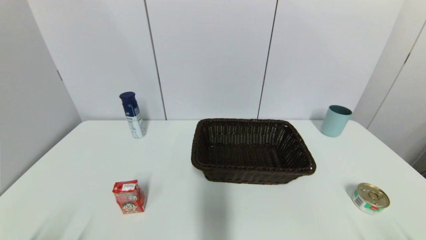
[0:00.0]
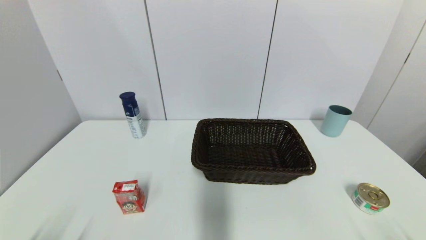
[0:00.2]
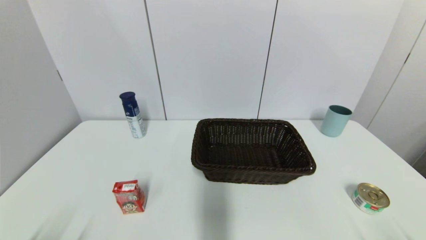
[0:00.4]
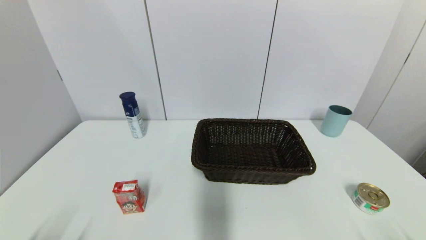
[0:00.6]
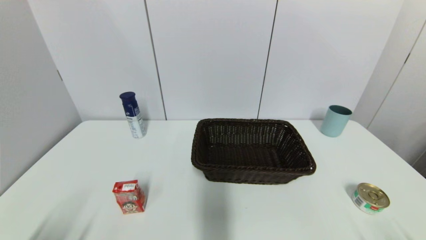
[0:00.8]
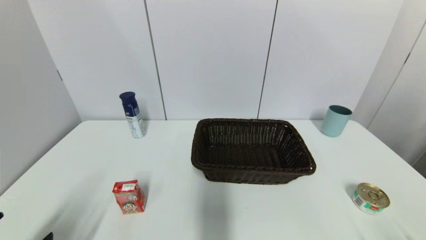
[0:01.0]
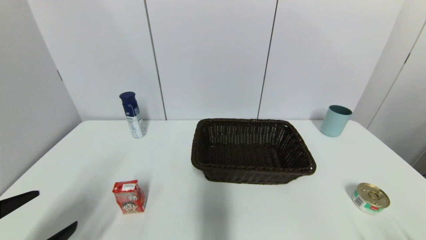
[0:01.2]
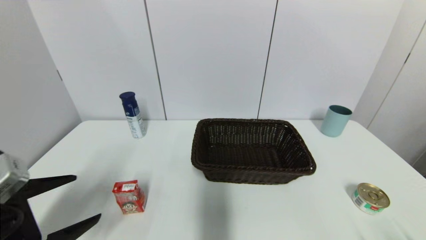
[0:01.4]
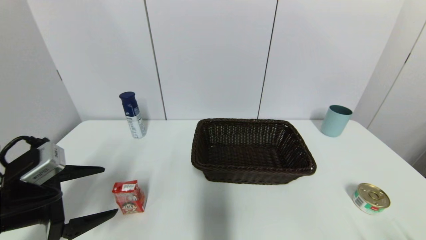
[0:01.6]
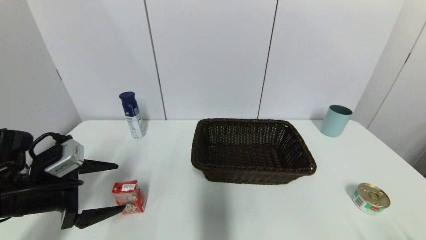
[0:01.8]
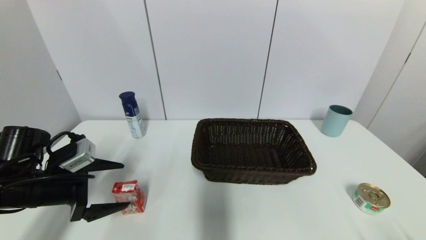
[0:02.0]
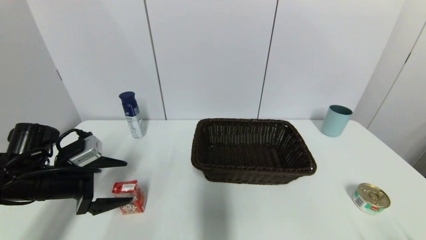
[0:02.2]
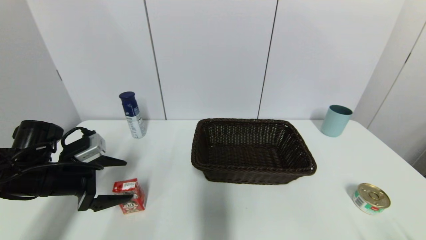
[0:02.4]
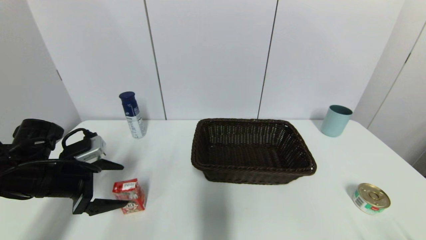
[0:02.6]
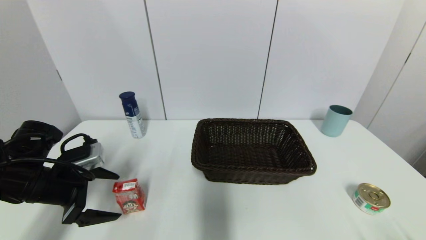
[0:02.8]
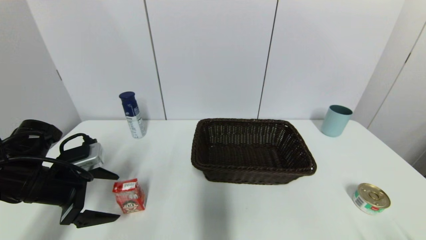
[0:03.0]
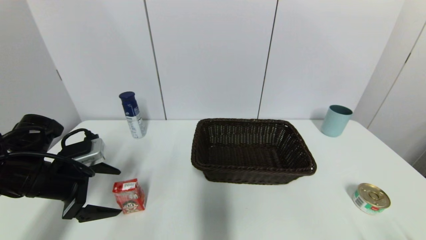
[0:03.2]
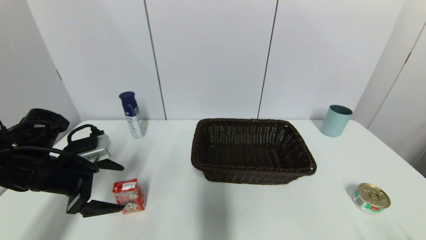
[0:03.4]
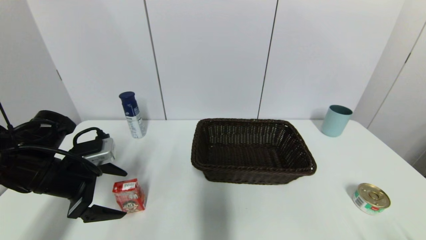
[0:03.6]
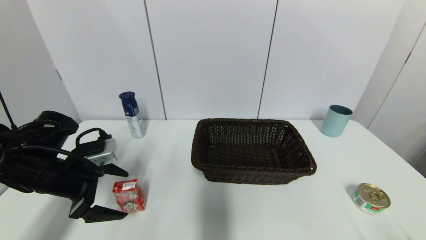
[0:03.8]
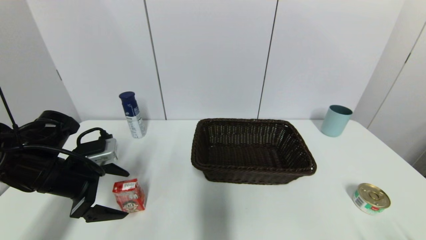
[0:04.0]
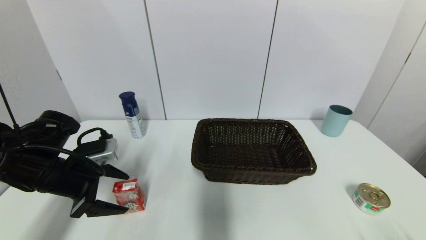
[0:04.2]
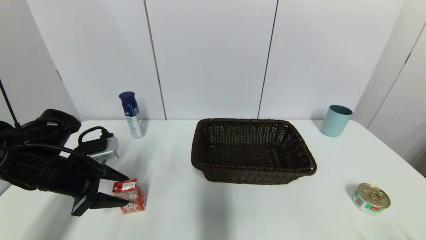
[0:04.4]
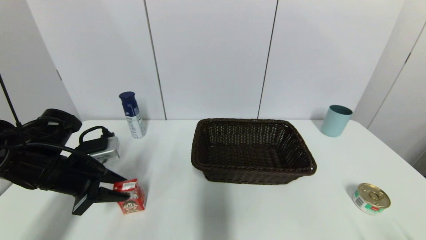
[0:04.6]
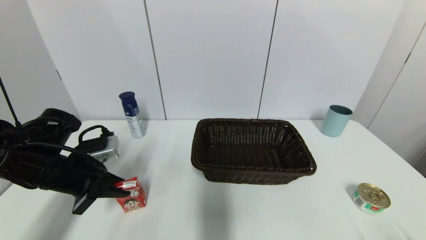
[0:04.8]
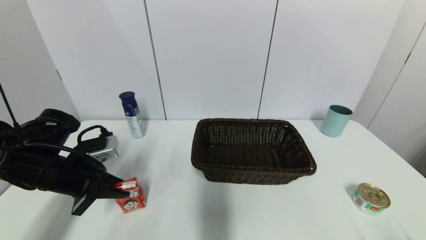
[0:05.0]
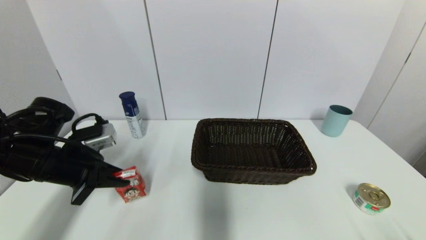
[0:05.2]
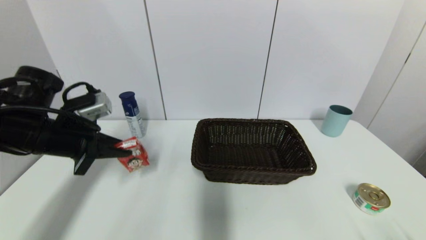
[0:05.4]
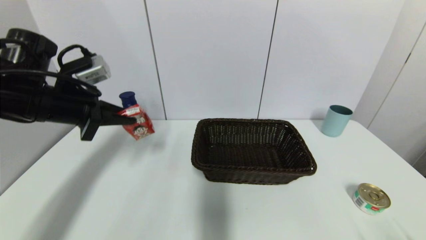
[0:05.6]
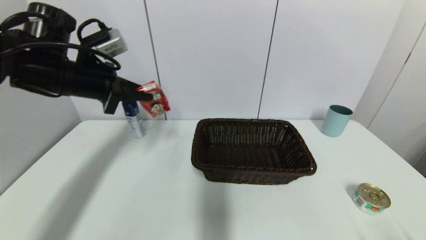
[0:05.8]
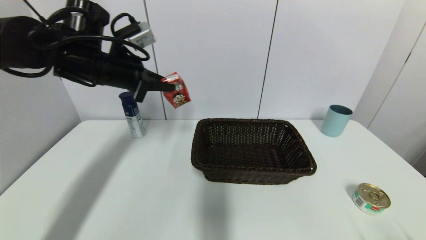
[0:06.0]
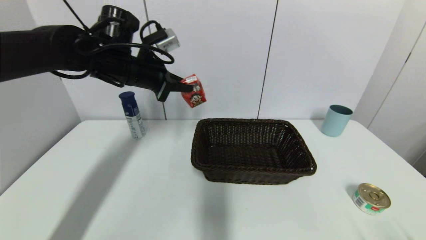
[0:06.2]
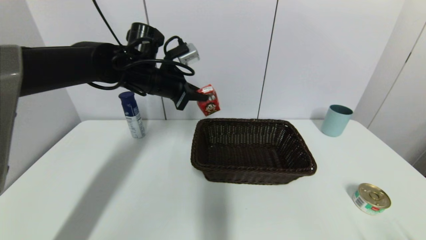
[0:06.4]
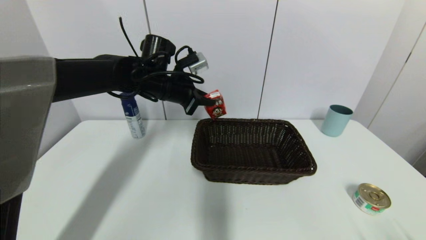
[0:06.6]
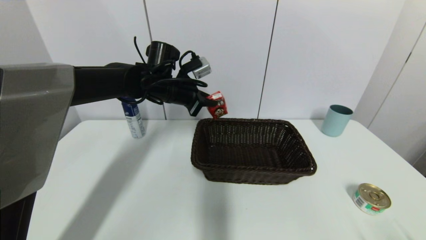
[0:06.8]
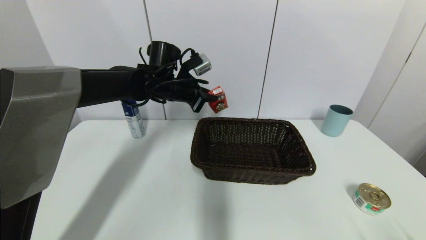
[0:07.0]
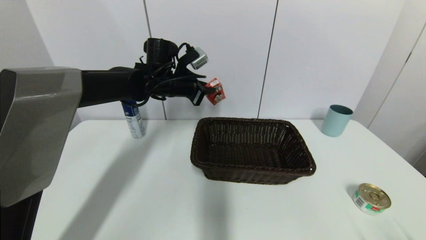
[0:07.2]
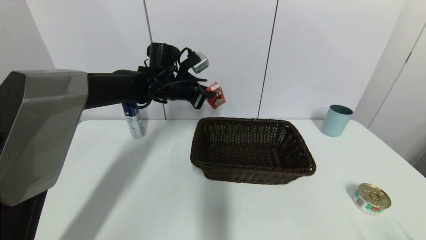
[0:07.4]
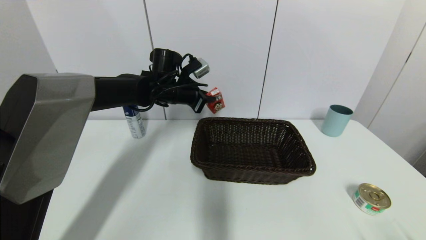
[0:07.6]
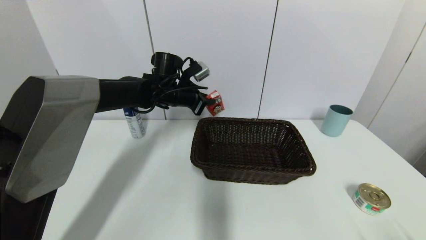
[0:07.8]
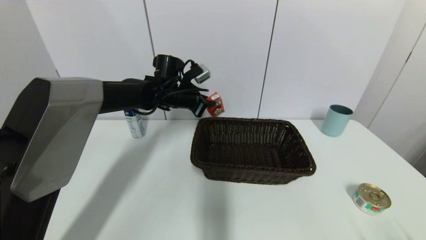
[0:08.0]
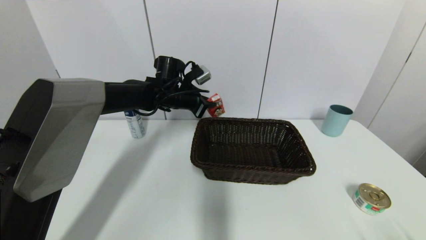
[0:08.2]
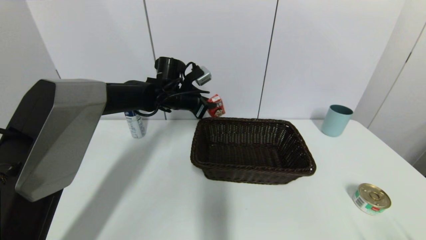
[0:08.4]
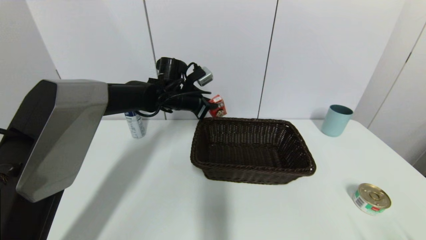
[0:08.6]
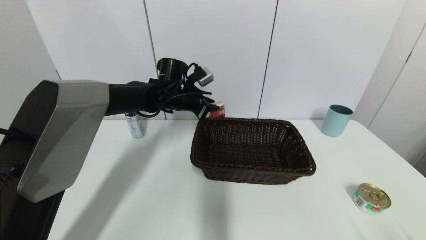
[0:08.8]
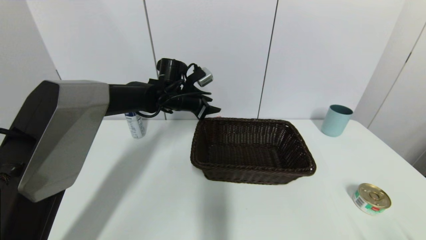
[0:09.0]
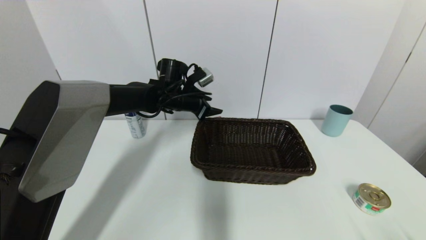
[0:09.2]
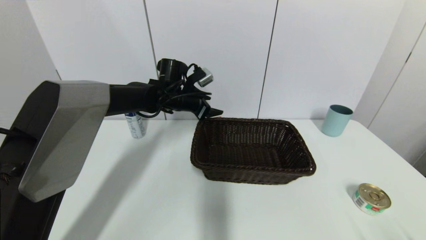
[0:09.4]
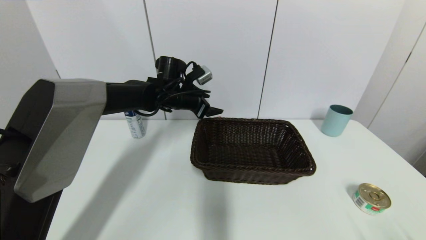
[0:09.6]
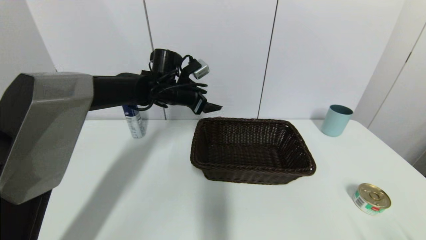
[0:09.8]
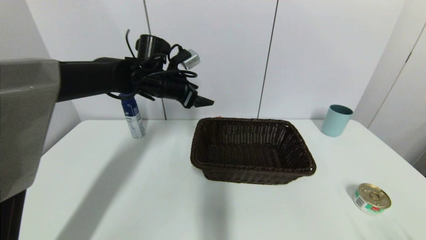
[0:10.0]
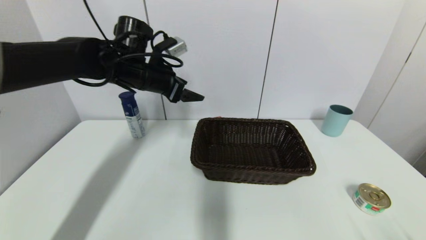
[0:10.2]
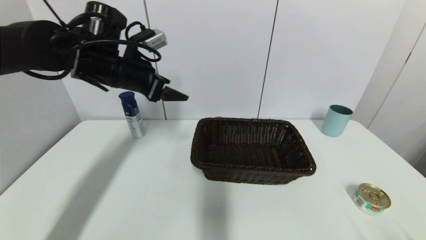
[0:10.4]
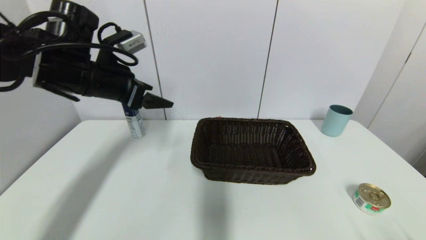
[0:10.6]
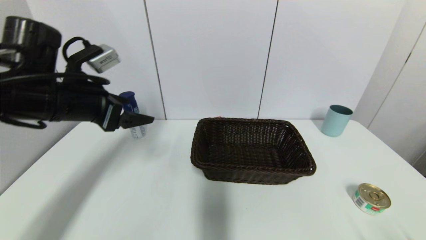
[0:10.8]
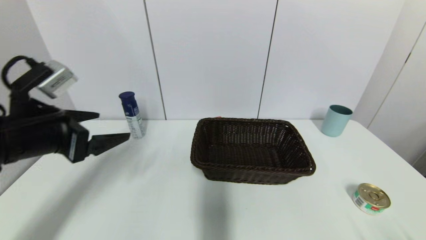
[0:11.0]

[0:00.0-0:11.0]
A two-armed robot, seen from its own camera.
Step, 0:01.0 to 0:05.0: Grasp the wangzai milk with left gripper.
Step, 0:05.4 to 0:08.8: Place the wangzai milk on the table with left gripper.
0:00.0 to 0:01.6: The left gripper travels forward and upward by approximately 20 cm.
0:01.6 to 0:03.2: The left gripper shifts some 5 cm forward.
0:03.2 to 0:04.8: The left gripper closes up.
0:04.8 to 0:06.2: The left gripper heads upward, forward and to the right, covering about 20 cm.
0:06.2 to 0:07.8: The left gripper travels downward, forward and to the right by approximately 15 cm.
0:07.8 to 0:09.4: The left gripper opens up.
0:09.4 to 0:11.0: The left gripper travels backward and to the left by approximately 30 cm.

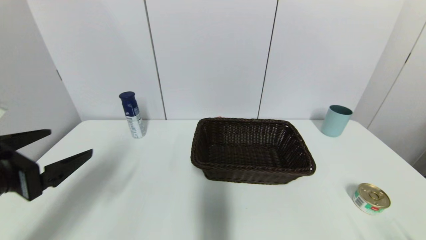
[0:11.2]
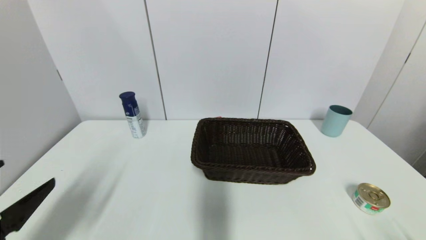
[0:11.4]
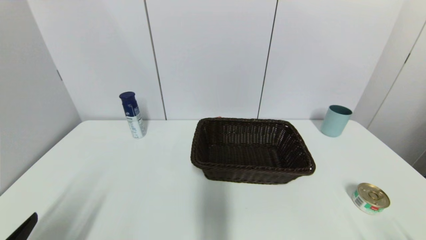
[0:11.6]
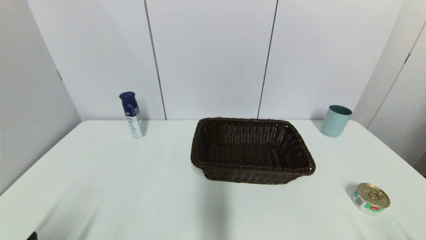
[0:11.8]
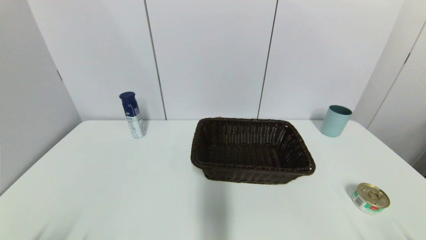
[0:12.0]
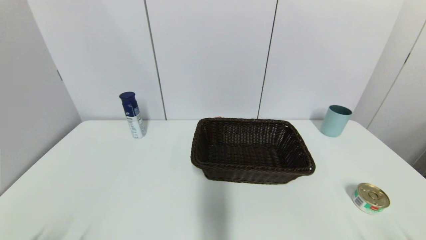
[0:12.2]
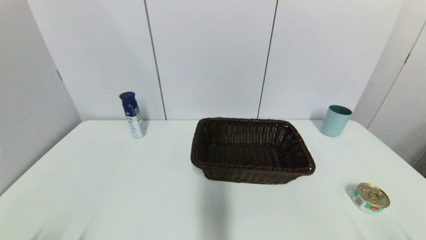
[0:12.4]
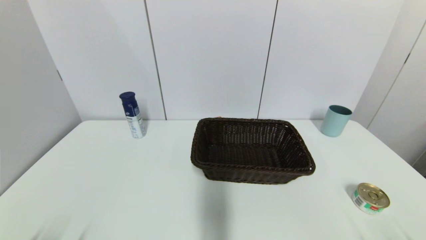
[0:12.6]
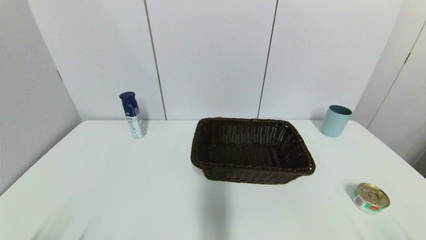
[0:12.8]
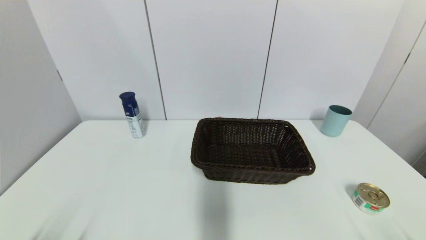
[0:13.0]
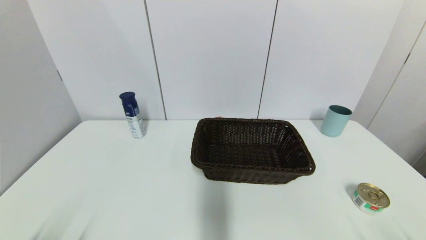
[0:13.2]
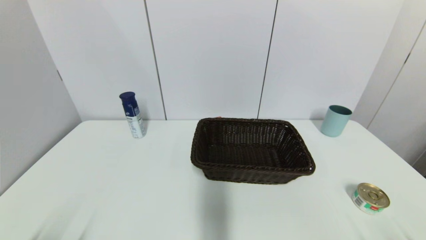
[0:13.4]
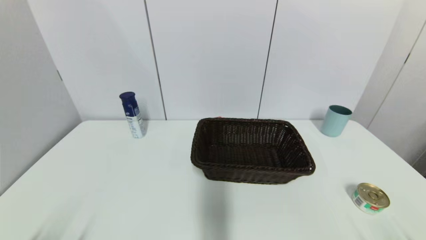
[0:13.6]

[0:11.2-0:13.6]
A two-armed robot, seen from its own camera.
0:11.2 to 0:12.4: The left gripper goes about 20 cm downward and backward.
0:12.4 to 0:13.6: Both grippers stay about where they are.
